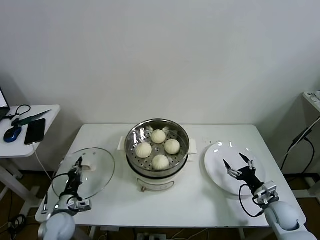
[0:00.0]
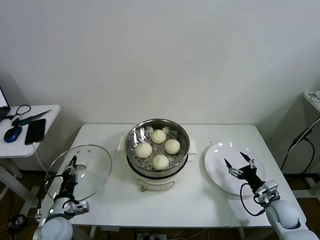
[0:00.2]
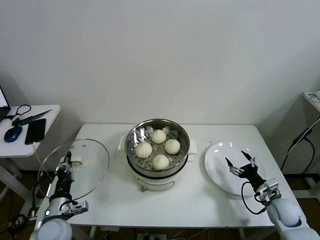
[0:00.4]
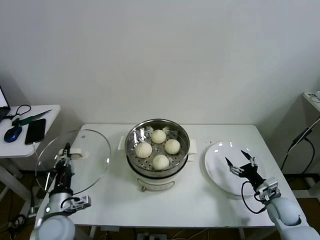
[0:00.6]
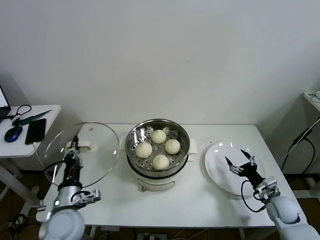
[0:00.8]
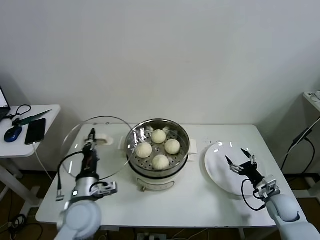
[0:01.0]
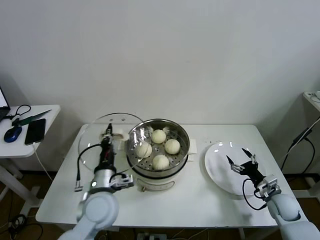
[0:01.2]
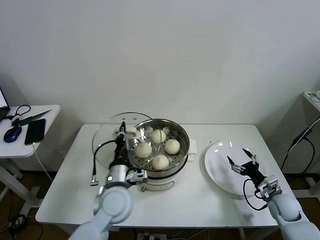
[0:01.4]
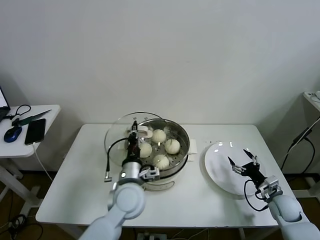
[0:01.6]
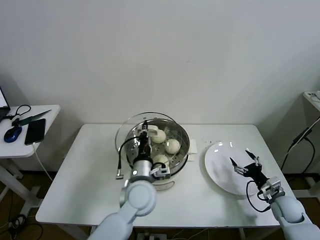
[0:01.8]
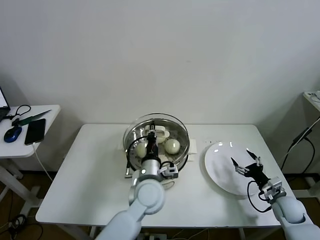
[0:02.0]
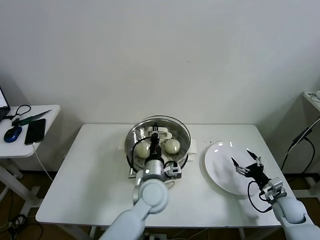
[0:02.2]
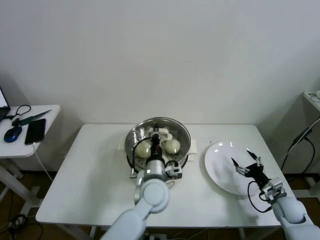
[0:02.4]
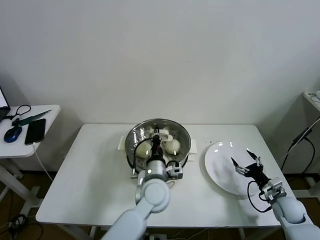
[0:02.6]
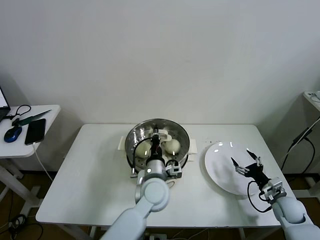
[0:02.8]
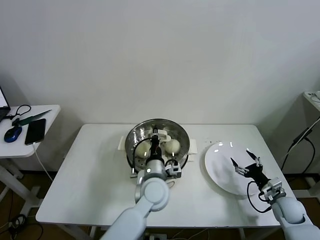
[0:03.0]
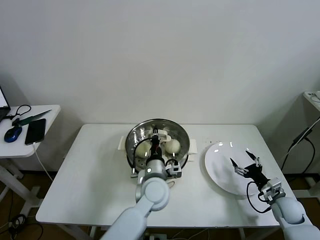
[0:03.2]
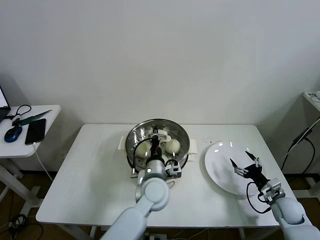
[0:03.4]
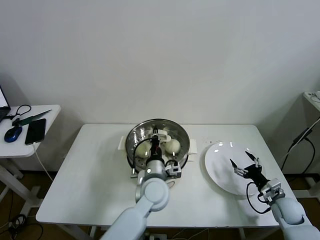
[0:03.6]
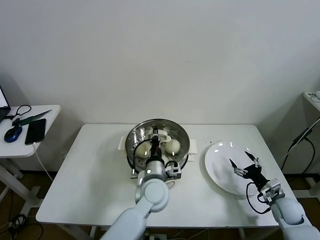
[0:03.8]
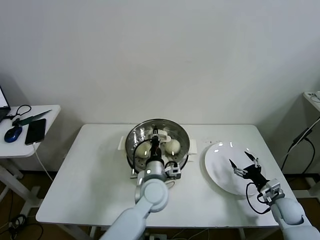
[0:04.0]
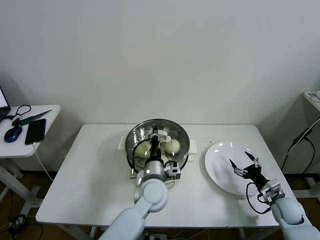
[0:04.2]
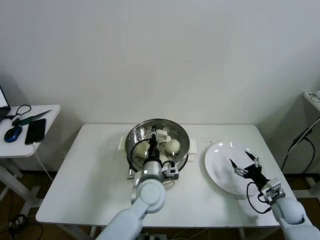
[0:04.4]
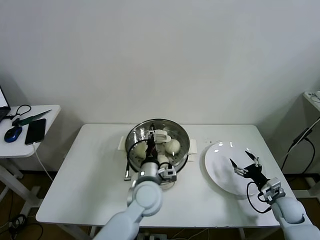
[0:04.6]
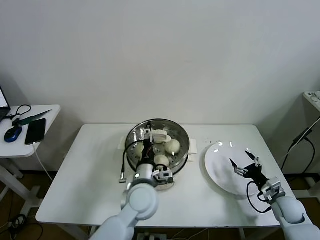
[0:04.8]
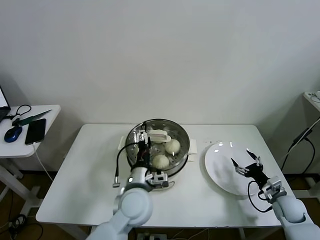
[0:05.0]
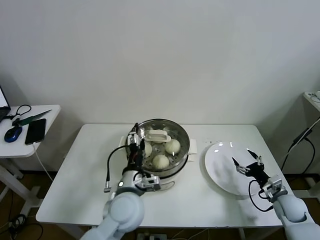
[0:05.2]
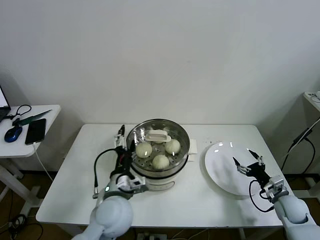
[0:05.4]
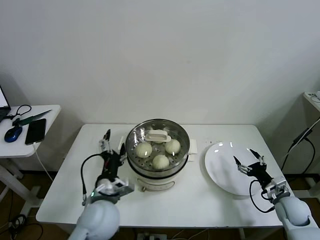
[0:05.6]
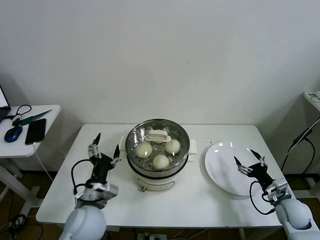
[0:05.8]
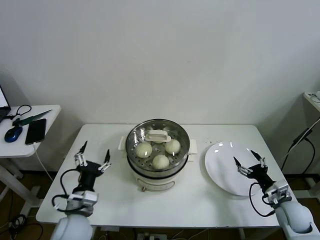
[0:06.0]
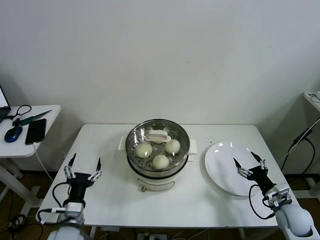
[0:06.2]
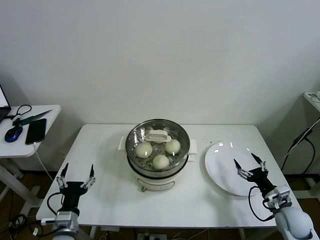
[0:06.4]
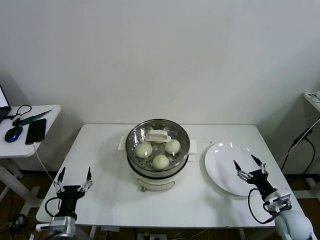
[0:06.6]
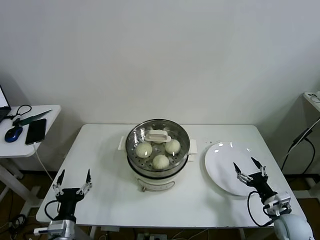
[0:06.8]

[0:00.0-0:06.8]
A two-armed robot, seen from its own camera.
Task of the whole recording: take steamed baozi put them in steamer then cover it.
Step, 0:00.0 to 0:04.4: Place the pot lid on the steamer with left gripper.
0:00.0 to 0:01.4: The left gripper is displaced to the right and upward by roughly 25 cm.
0:01.4 to 0:02.8: The left gripper shifts roughly 10 cm to the right.
0:02.8 to 0:04.0: Both grippers stay about where they are.
0:04.0 to 0:05.4: The left gripper goes approximately 10 cm to the left and backward, and opens.
0:05.4 to 0:06.8: The left gripper goes about 25 cm to the left, downward and backward; the right gripper moves backward, some 5 cm.
